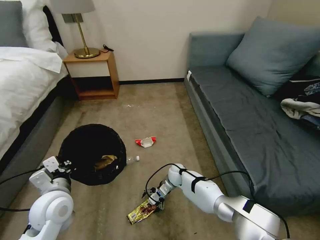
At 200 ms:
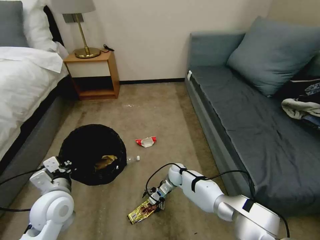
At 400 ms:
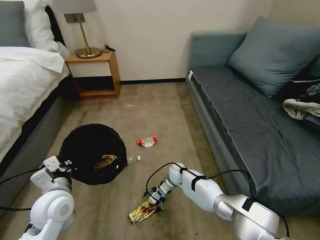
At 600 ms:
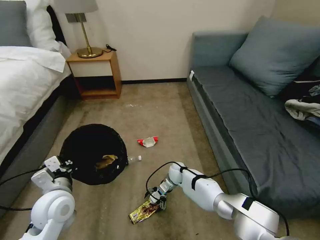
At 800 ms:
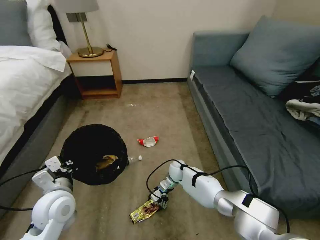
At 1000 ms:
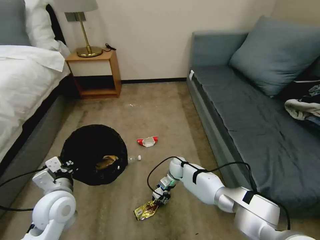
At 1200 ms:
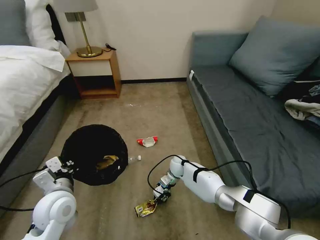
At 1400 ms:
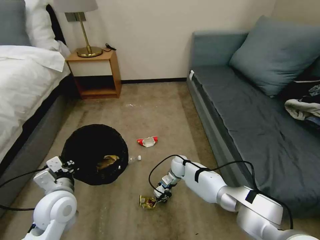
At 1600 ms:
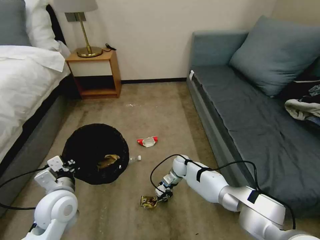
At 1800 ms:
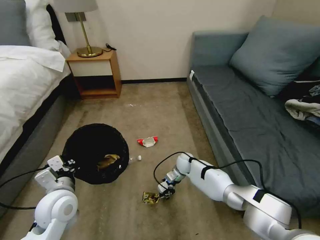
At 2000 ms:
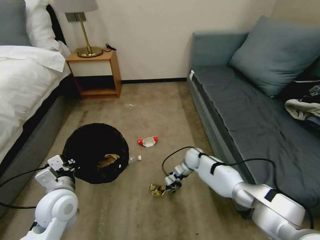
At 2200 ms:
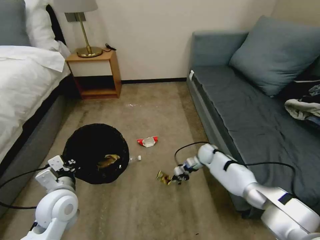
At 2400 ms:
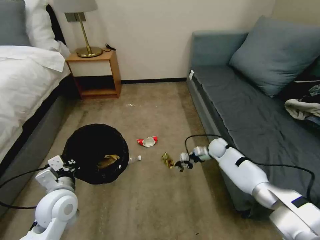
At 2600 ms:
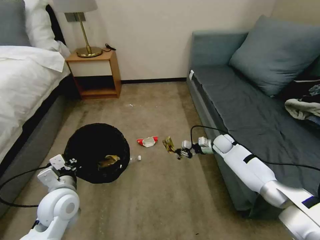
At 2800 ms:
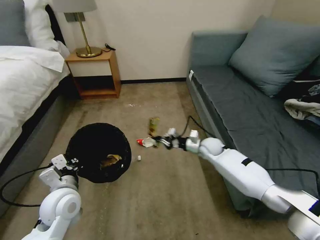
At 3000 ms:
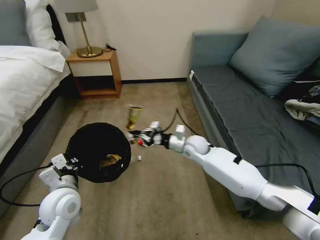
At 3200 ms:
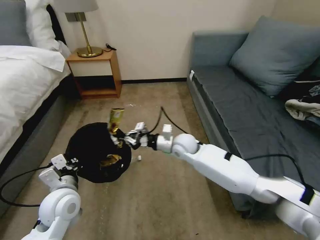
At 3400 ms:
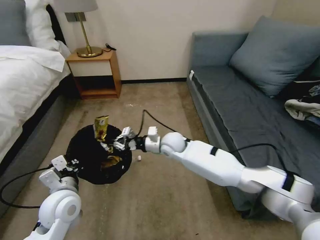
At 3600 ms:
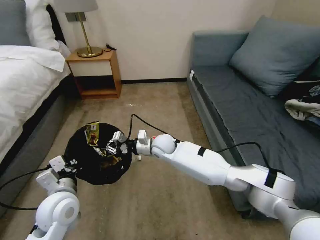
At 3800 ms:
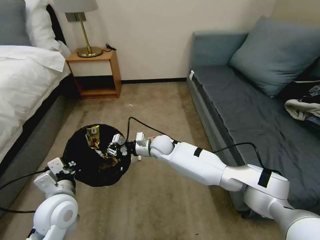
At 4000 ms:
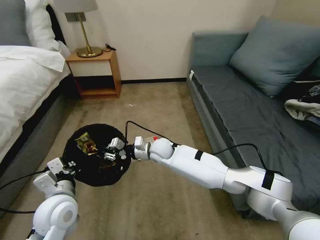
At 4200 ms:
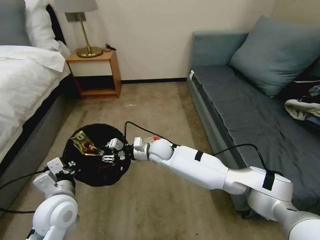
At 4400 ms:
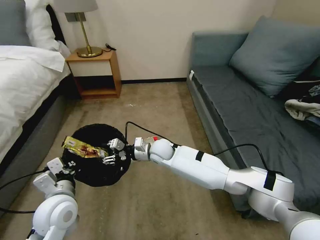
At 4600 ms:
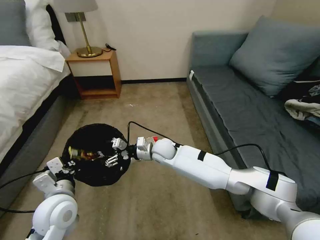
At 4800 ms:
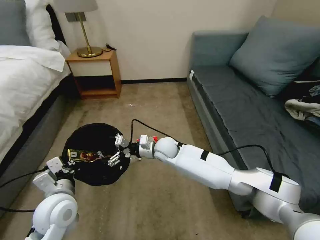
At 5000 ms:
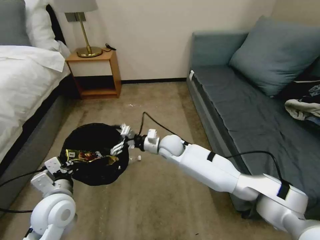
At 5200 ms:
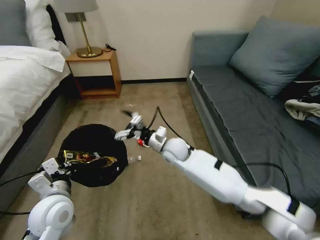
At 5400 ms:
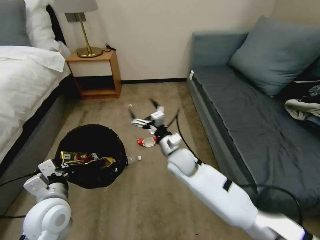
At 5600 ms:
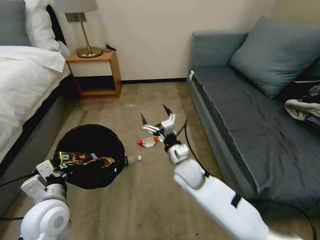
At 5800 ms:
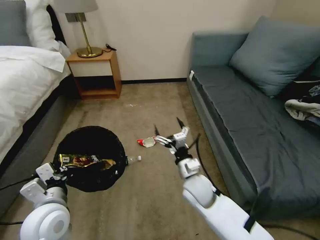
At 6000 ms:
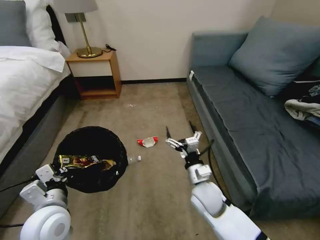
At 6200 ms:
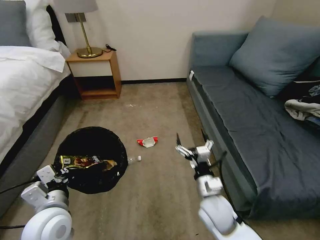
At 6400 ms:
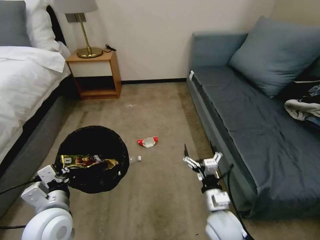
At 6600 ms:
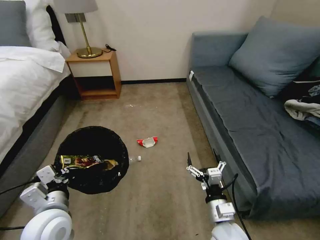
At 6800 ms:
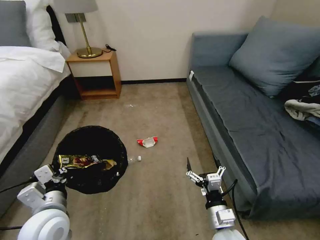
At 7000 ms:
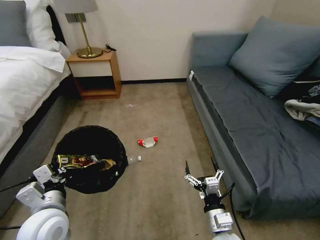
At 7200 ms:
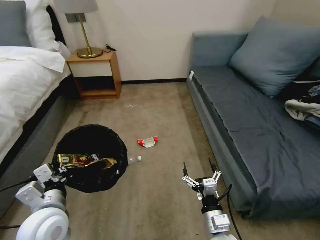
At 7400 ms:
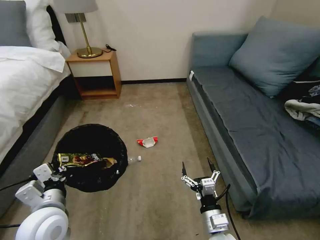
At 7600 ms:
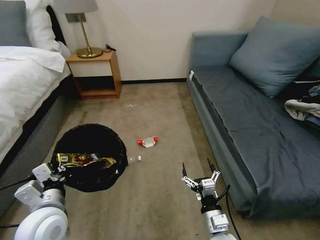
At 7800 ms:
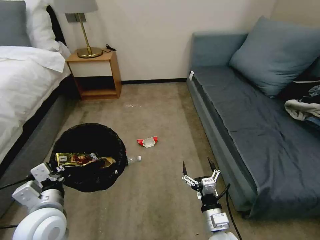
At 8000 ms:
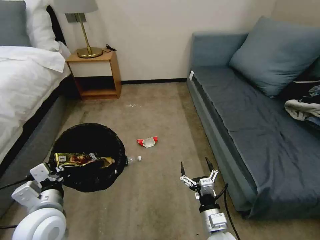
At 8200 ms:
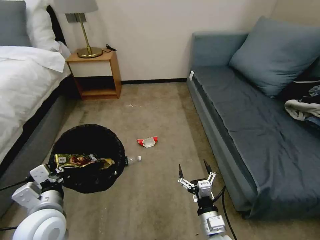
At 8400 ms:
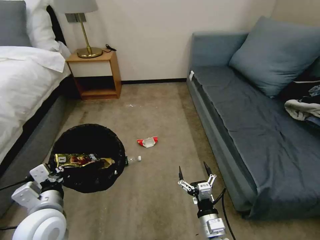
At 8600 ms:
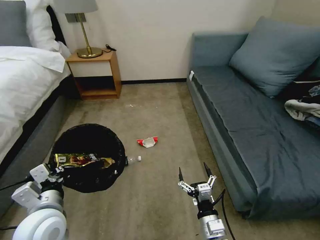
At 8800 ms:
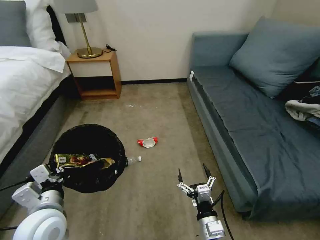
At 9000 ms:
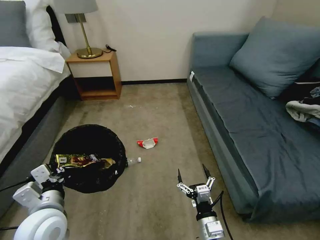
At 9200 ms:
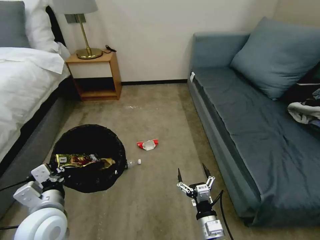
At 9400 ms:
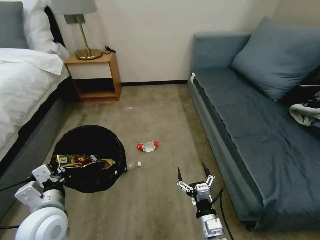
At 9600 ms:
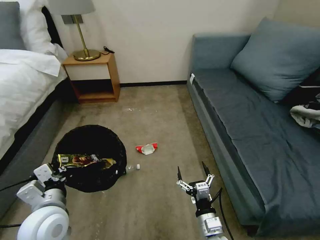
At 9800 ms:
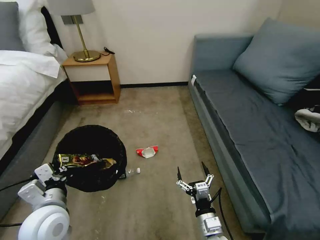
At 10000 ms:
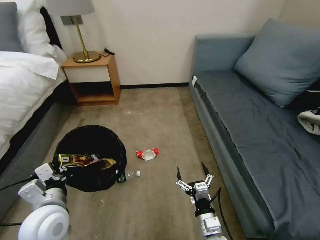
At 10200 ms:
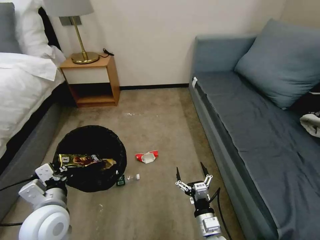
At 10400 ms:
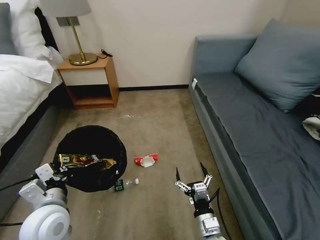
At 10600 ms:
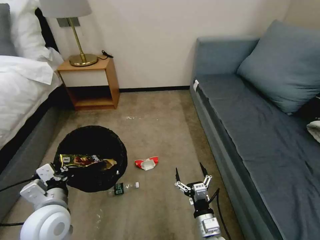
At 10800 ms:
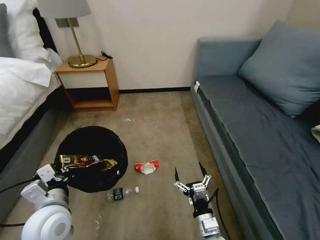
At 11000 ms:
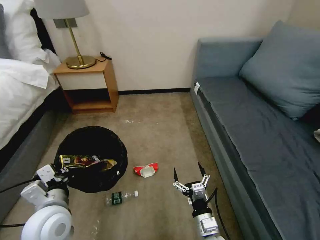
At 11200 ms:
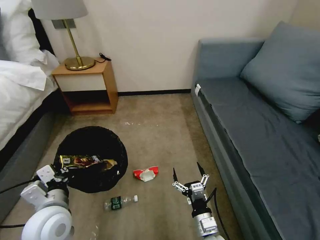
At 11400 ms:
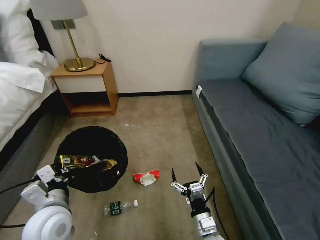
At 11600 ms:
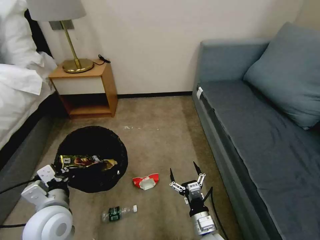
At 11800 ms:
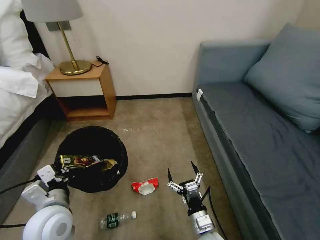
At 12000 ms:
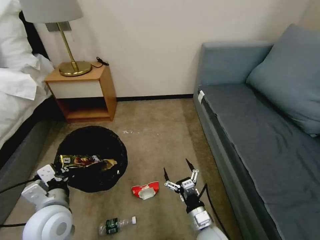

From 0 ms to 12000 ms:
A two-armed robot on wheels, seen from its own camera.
Task of the whole recording: Pick up the trash bin, then pick up the garbage on the floor and place it into the trash bin.
From 0 ms to 1600 ms: The right gripper closes its fingers.
From 1600 ms to 3000 ms: The right gripper heads upward, covering roughly 20 cm, and reaches approximately 20 cm to the right, then returns.
From 3000 ms to 4400 ms: The right gripper moves to the left, roughly 15 cm, and opens.
From 4400 ms to 6000 ms: The right gripper heads backward and to the right, covering some 20 cm, and opens up.
From 6000 ms to 7600 ms: The right gripper shifts roughly 15 cm backward.
From 7600 ms to 9000 ms: The grippers stay close to where they were, moving slightly.

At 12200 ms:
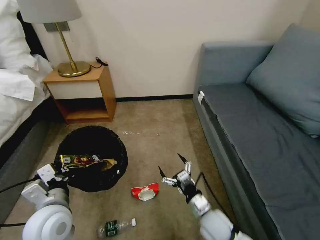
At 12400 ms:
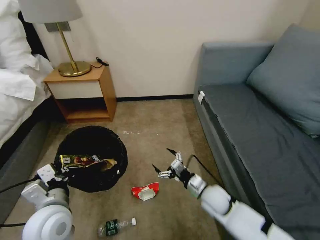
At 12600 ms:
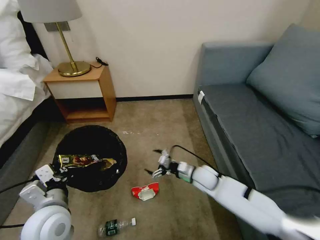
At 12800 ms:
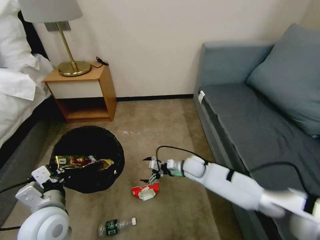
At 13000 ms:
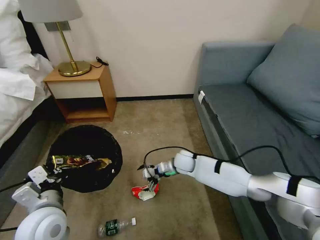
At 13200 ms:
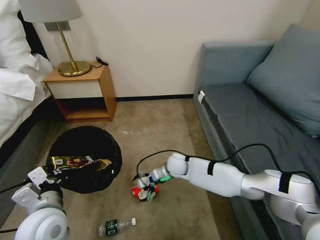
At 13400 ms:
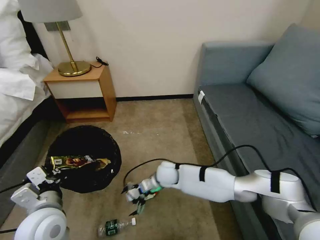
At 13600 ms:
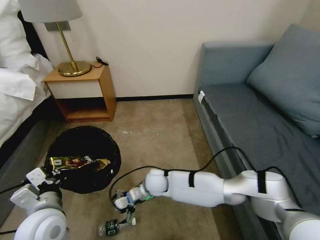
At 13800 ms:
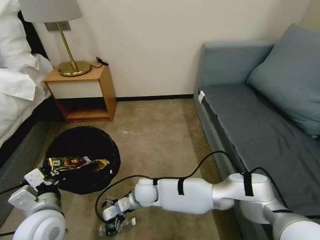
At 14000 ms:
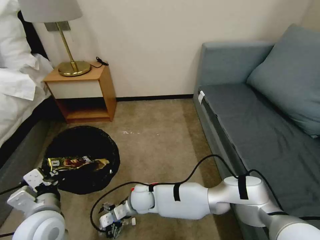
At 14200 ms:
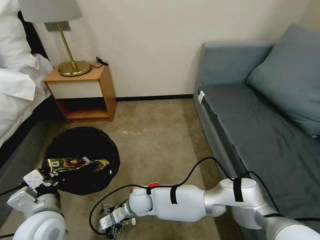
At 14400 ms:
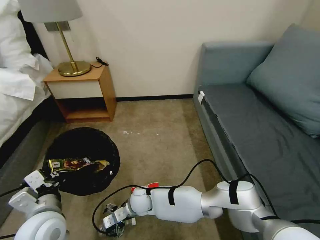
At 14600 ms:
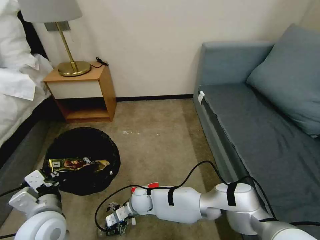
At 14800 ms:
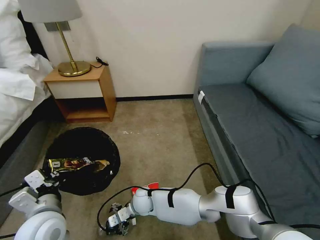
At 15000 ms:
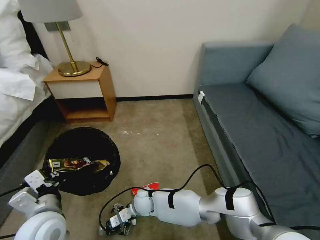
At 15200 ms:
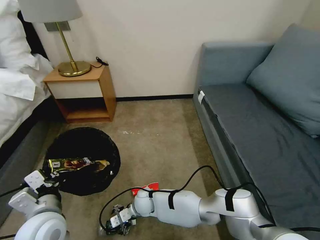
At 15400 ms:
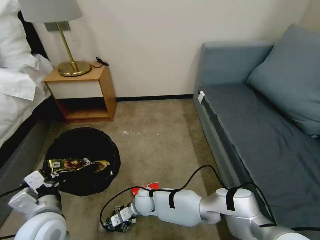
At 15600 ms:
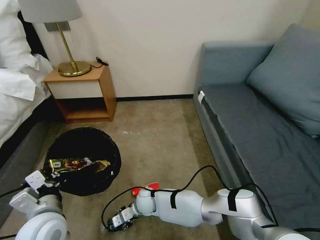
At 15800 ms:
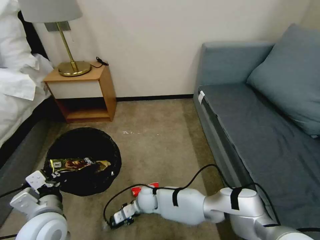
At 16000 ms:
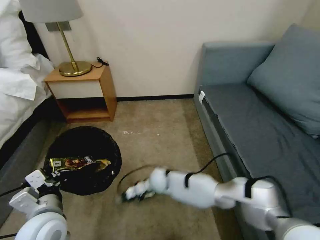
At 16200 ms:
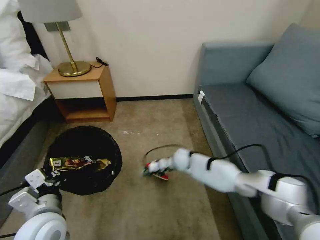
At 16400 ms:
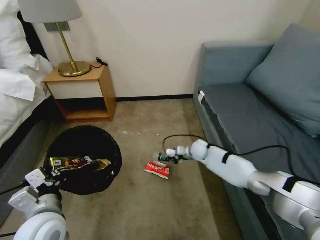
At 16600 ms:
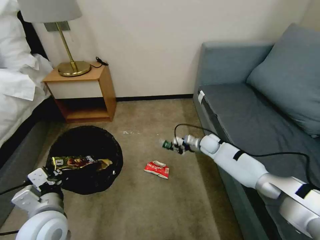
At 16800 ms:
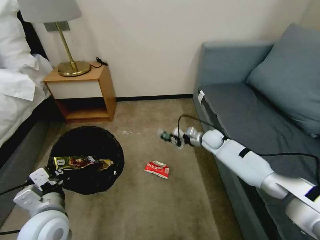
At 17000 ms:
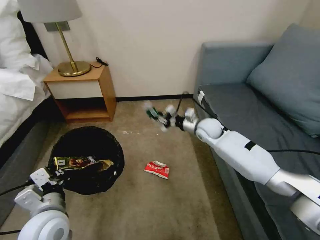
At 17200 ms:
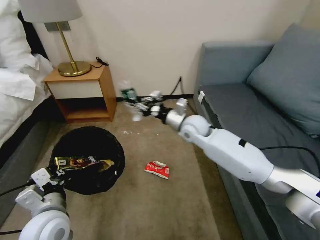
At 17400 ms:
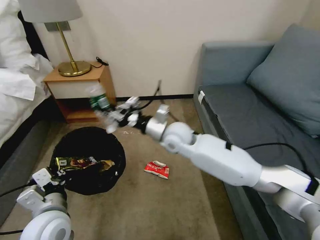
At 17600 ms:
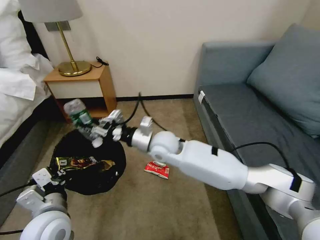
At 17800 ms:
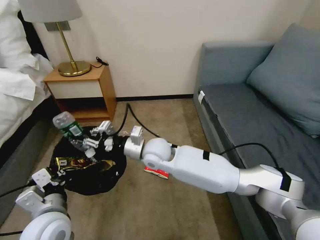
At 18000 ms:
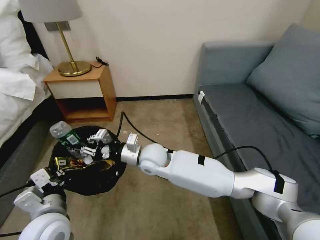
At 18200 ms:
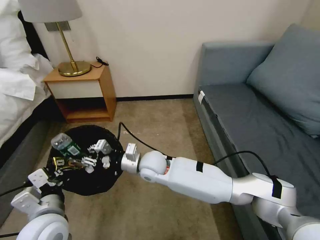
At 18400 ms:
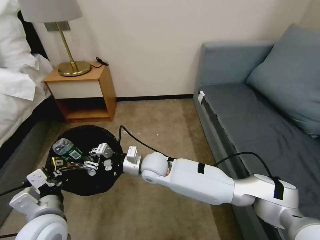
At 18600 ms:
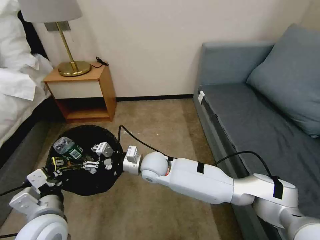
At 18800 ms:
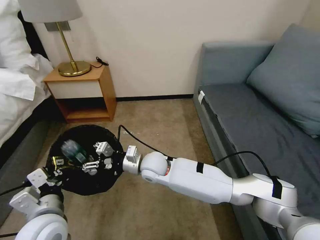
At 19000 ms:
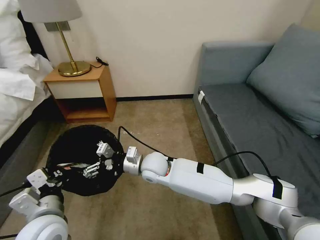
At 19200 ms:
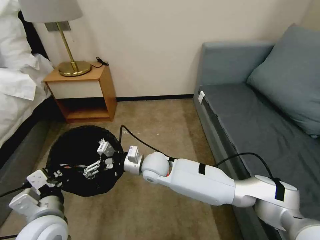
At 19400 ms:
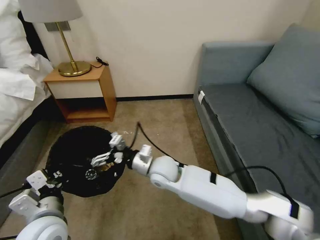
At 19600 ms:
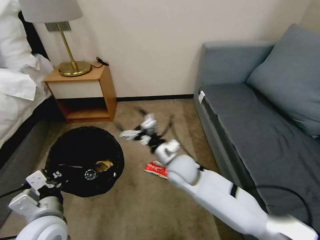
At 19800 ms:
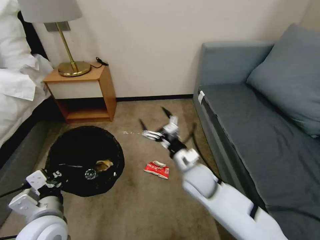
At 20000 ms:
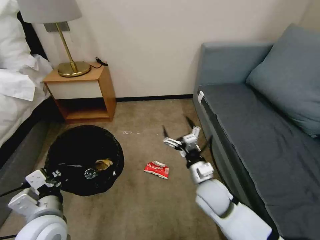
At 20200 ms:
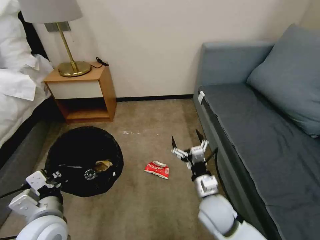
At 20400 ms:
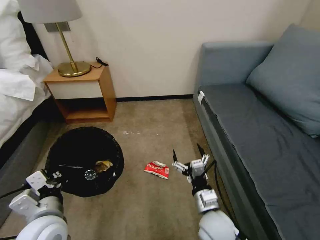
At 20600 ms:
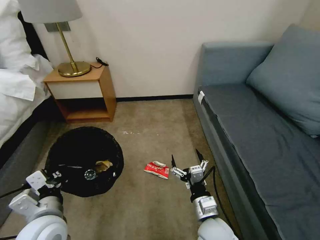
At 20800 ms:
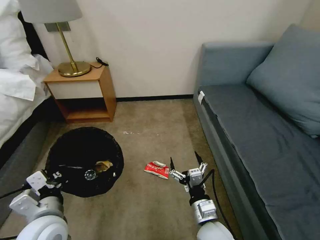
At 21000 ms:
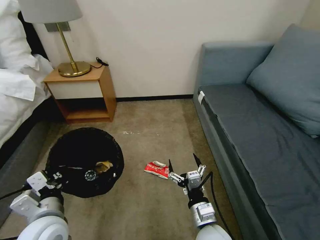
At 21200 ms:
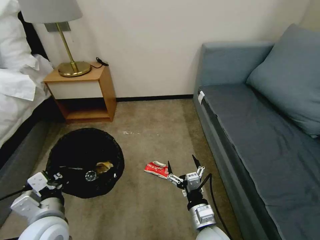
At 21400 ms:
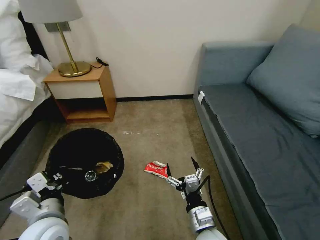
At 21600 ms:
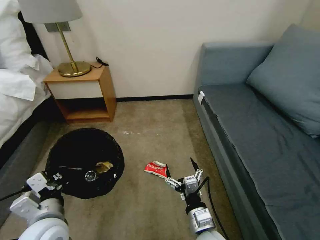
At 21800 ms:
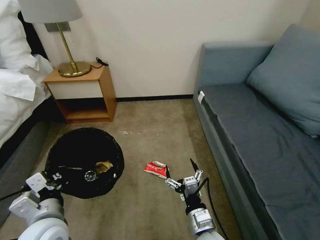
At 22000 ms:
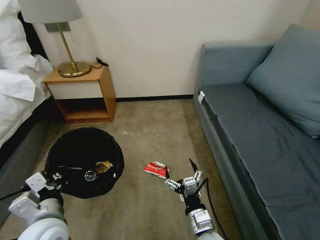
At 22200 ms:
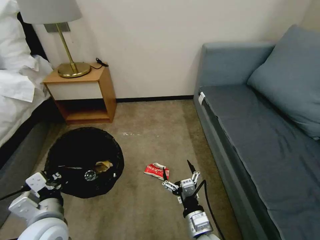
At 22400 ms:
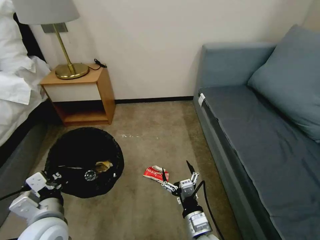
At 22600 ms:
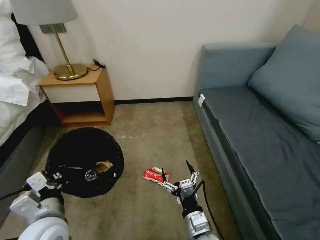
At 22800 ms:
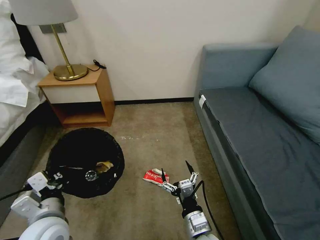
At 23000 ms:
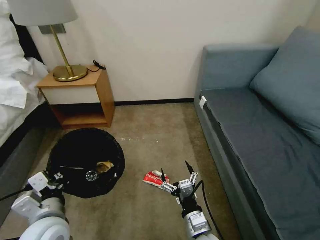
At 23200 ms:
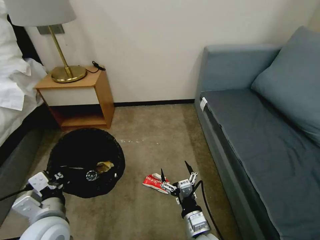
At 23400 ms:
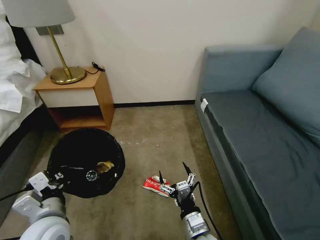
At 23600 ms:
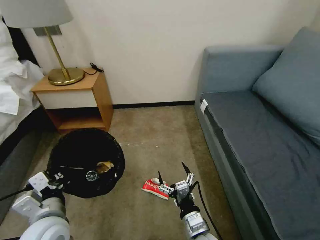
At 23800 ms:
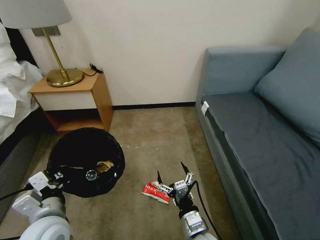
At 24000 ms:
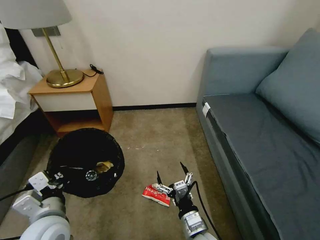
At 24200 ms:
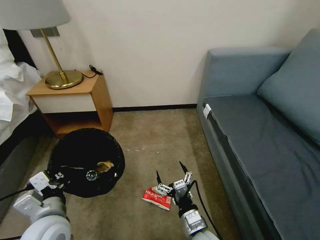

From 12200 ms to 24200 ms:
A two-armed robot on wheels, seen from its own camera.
Task of the whole recording: Pick up the trash bin, then pick up the garbage on the floor and place it into the trash bin.
From 12200 ms to 13800 ms: The right gripper moves to the left and forward, approximately 25 cm.
From 13800 ms to 15200 ms: The right gripper shifts roughly 10 cm downward.
From 15200 ms to 16600 ms: The right gripper heads to the right and forward, covering about 35 cm, and closes its fingers.
From 16600 ms to 18200 ms: The right gripper shifts about 30 cm to the left and backward.
From 18200 ms to 19800 ms: The right gripper is displaced to the right by some 15 cm, and opens.
From 19800 ms to 21200 ms: The right gripper moves backward, roughly 15 cm.
From 21200 ms to 24200 ms: The grippers move only a little.
